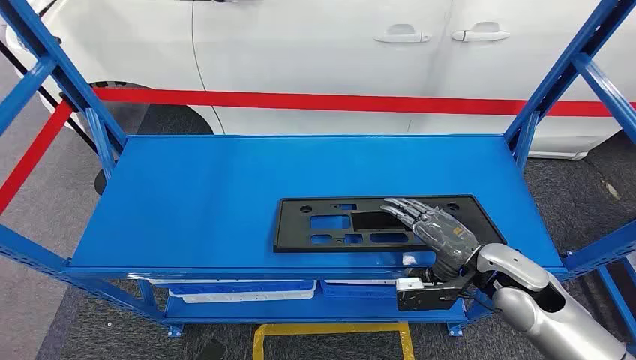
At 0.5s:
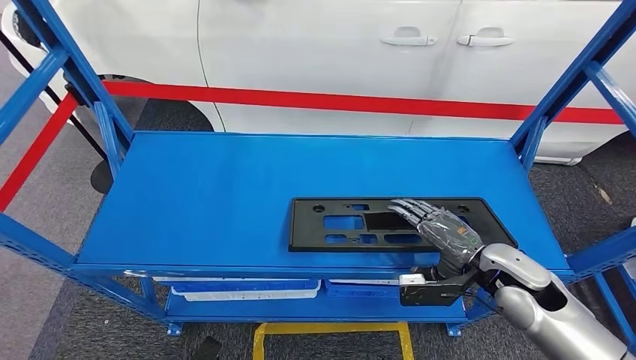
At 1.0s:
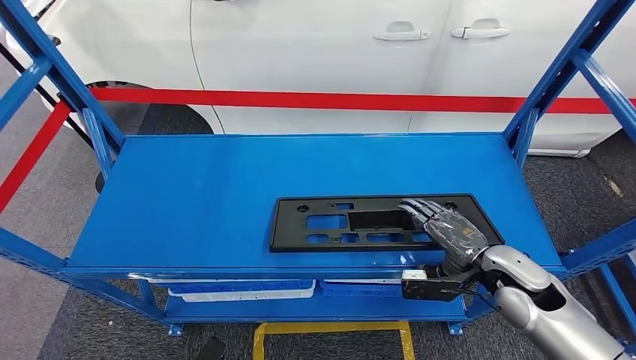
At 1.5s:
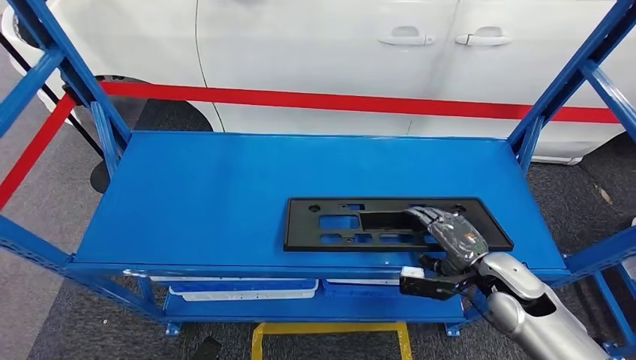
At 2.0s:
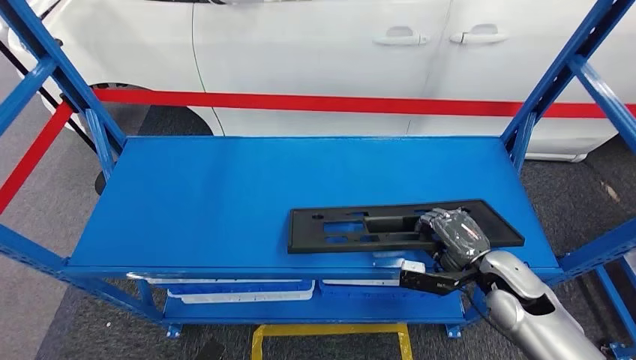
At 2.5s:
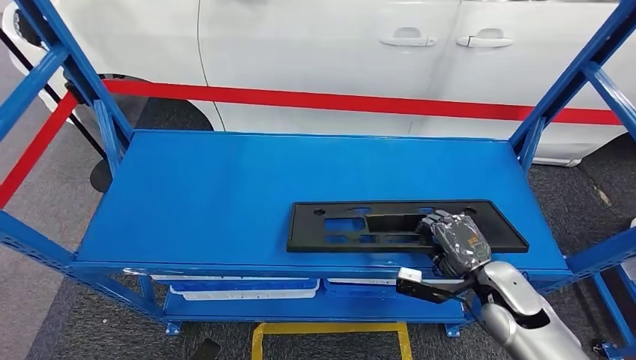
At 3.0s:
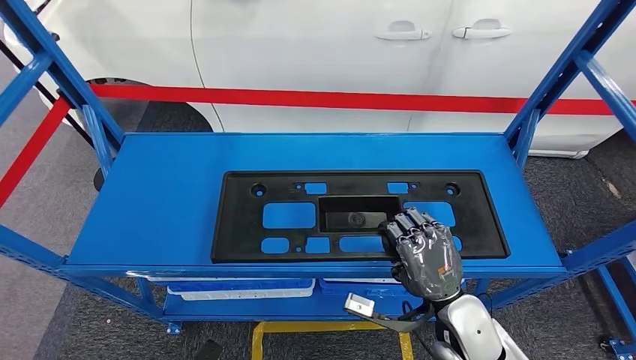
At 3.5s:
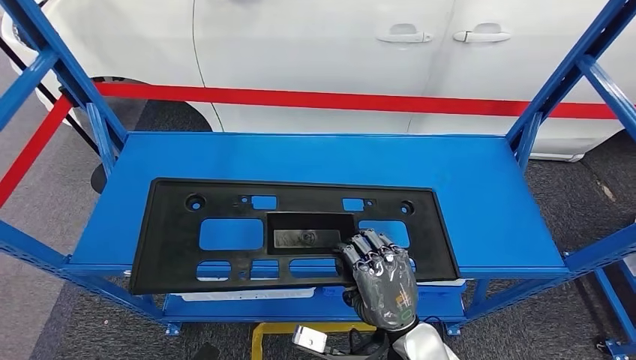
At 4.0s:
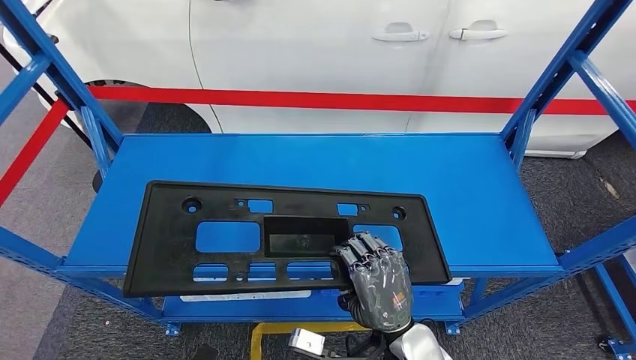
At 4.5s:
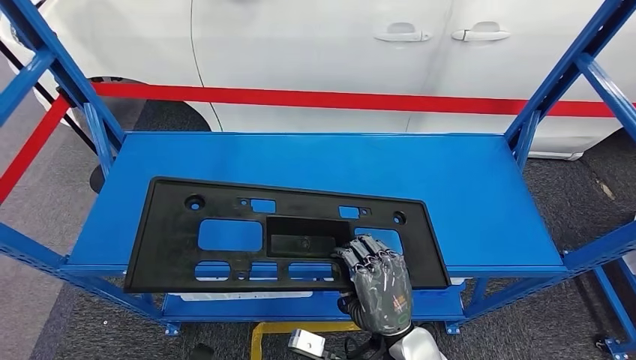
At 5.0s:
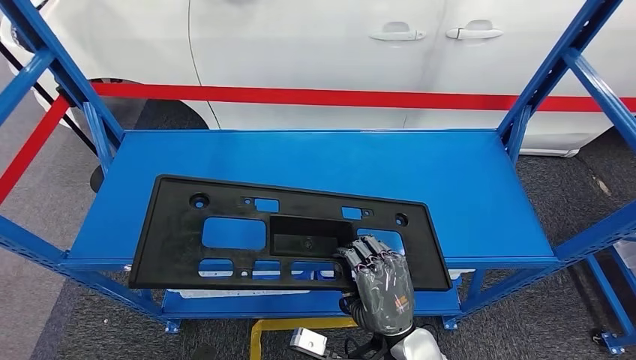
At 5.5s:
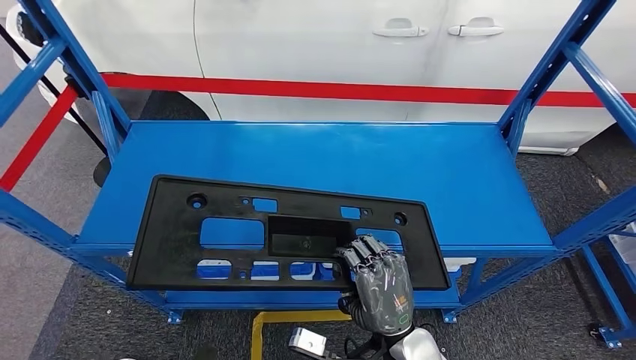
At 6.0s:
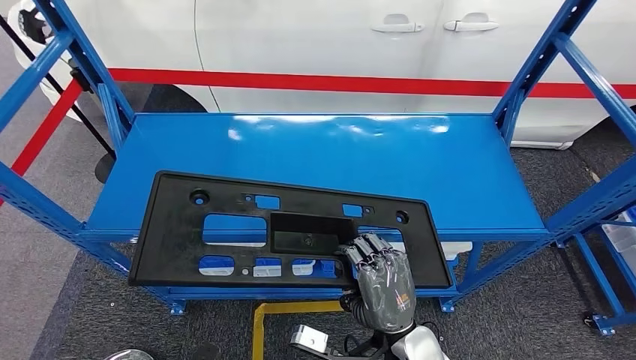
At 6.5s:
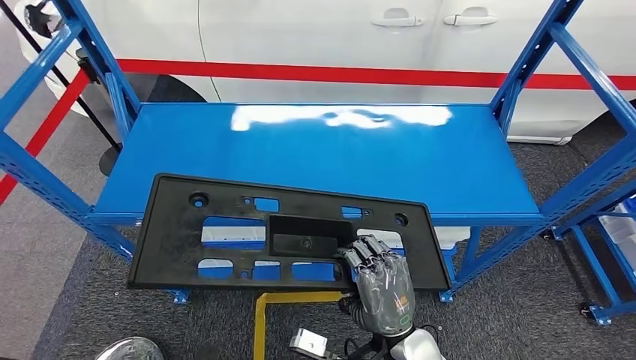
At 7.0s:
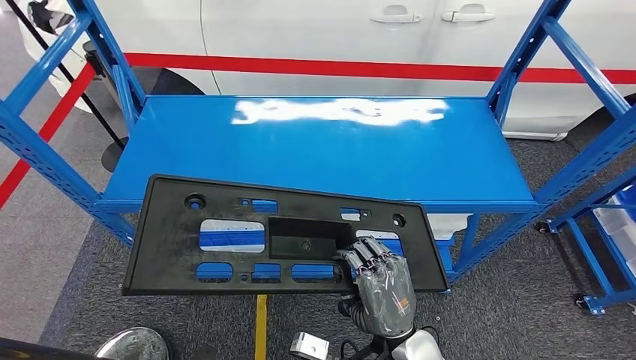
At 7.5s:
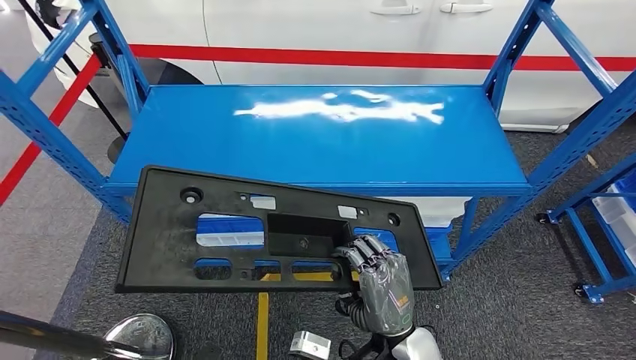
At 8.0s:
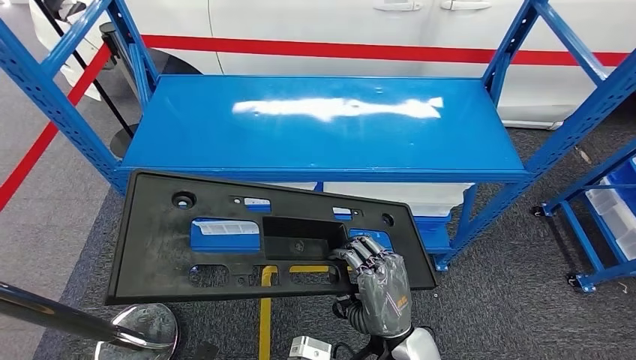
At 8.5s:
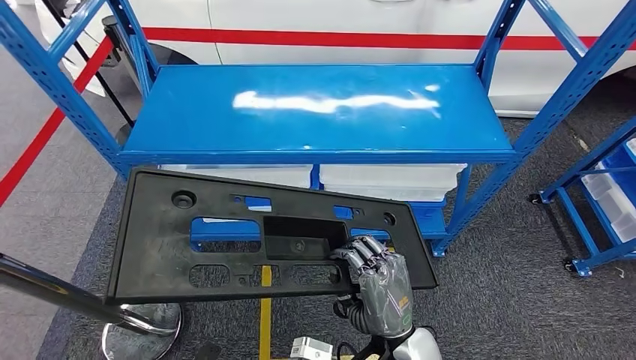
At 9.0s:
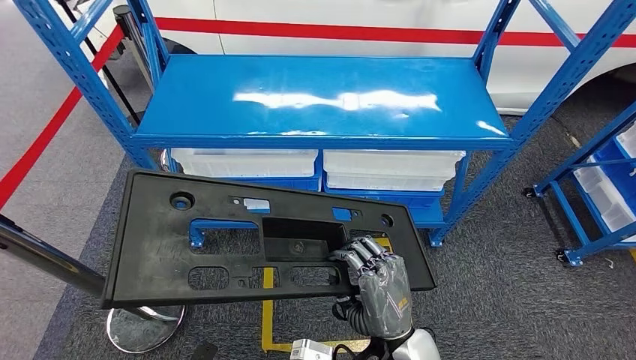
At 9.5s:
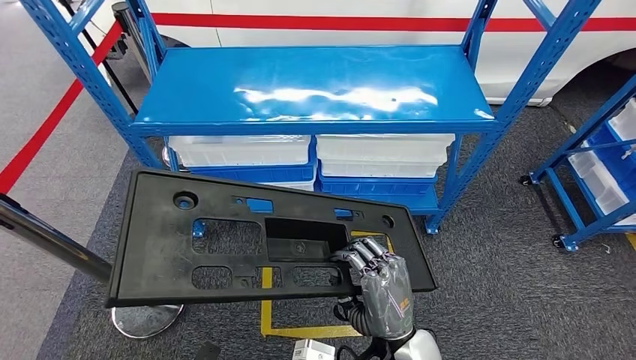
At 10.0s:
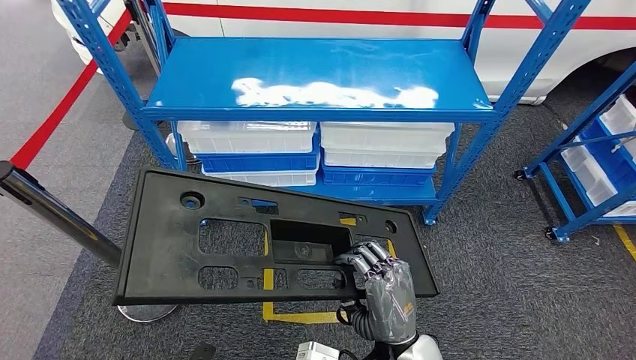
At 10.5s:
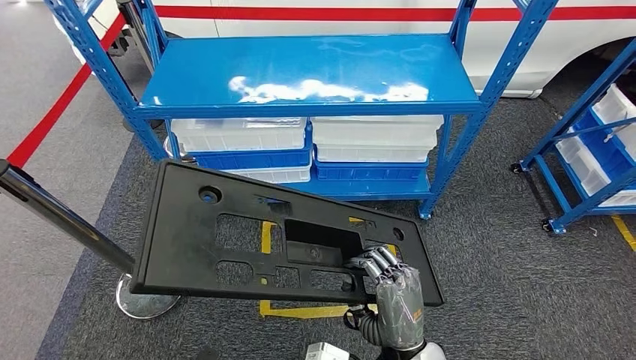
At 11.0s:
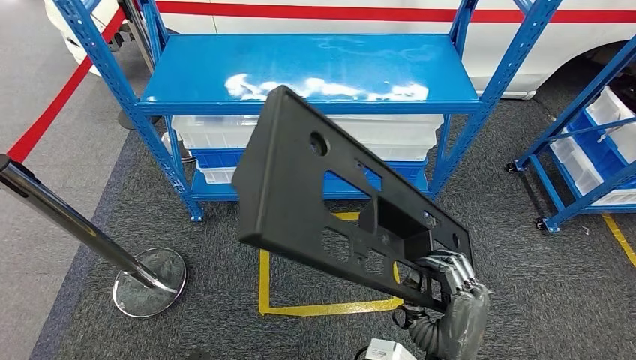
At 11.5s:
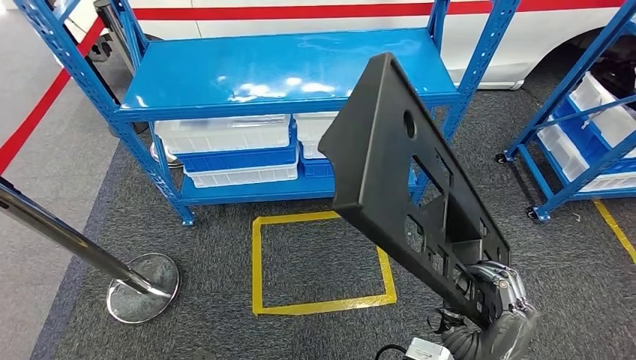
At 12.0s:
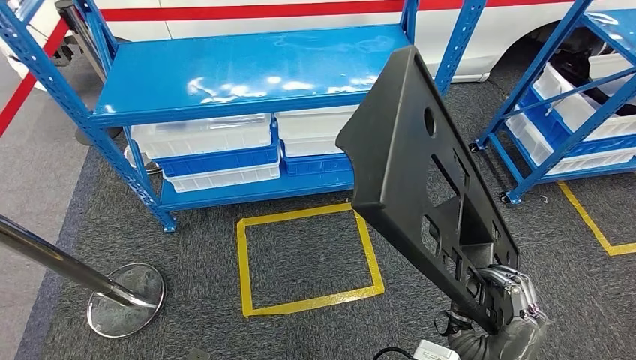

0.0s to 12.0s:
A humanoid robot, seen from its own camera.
Step, 0.0s to 4.0s: Pick up the large material from the shelf.

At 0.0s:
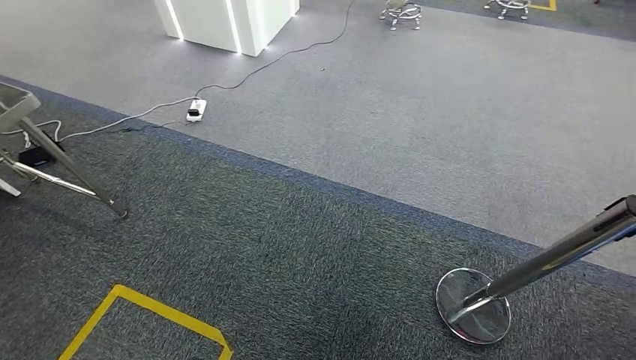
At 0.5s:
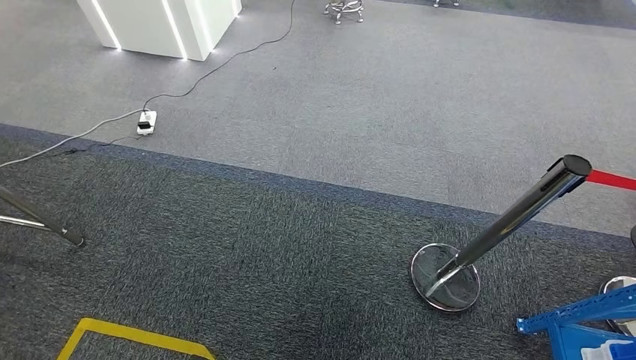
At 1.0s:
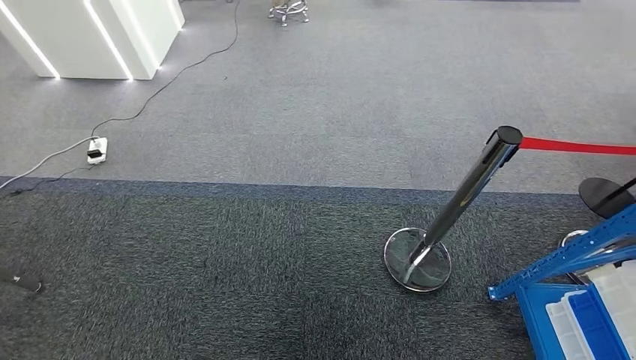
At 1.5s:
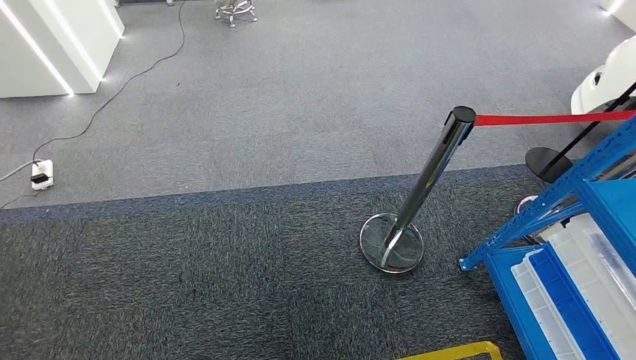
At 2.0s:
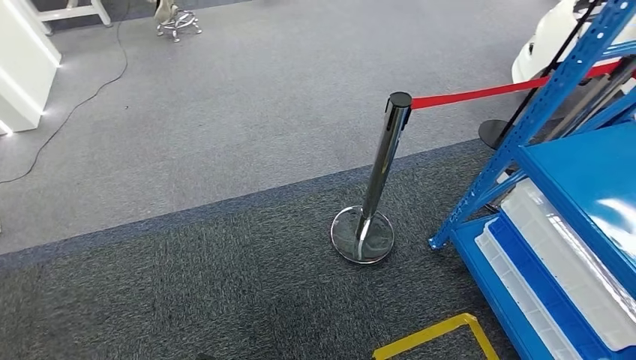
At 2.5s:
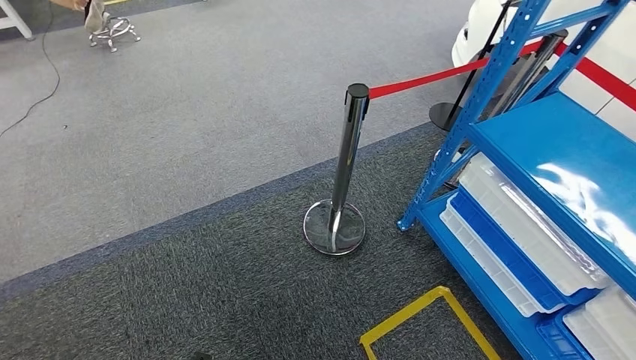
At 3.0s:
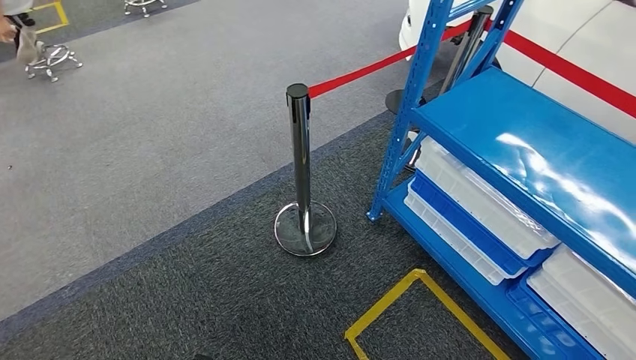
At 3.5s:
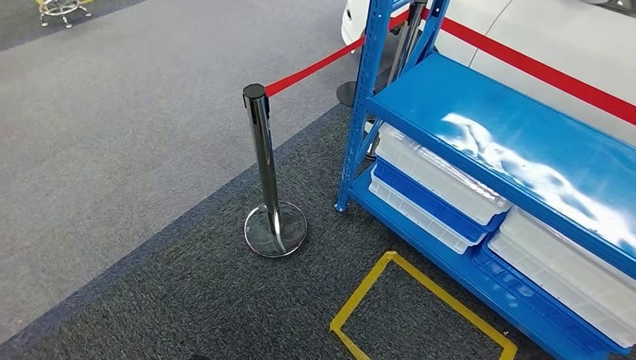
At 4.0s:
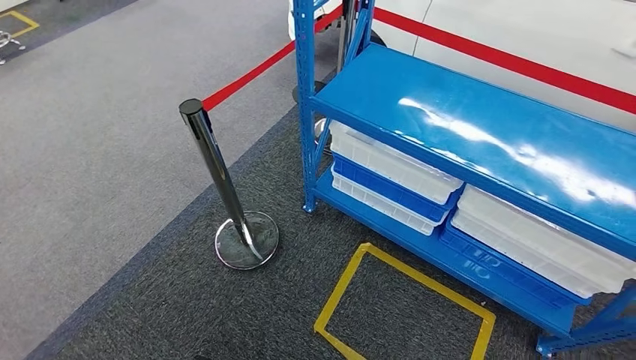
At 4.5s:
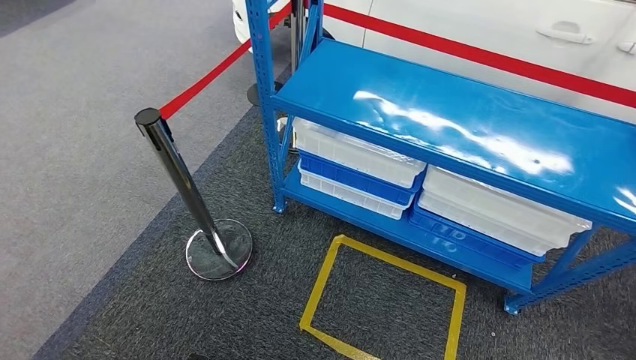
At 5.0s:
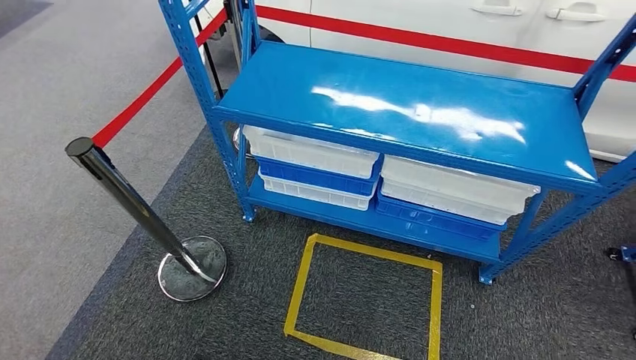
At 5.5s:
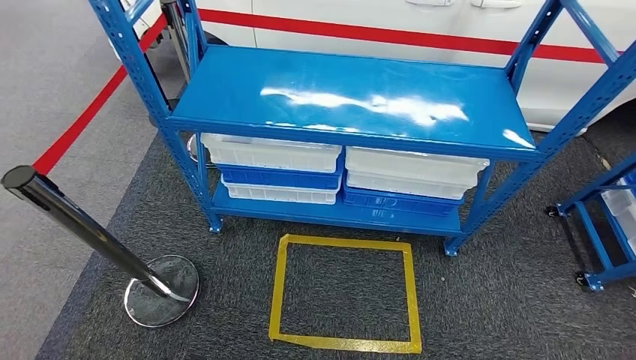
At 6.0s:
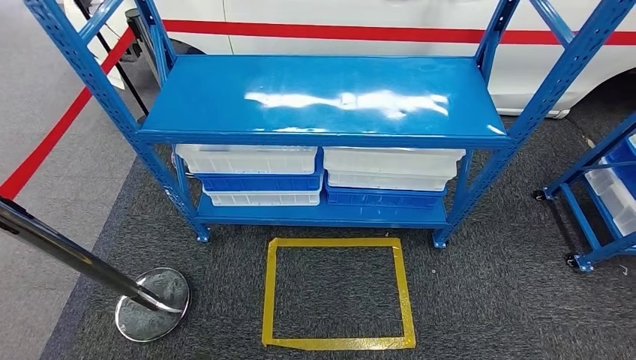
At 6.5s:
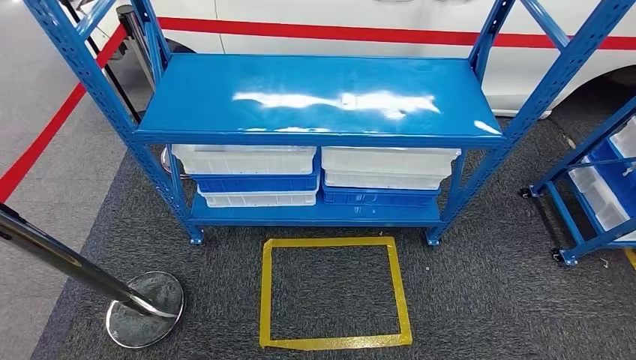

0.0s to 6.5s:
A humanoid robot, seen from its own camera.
Step, 0.0s to 6.0s: Move to the initial position of the shelf.
